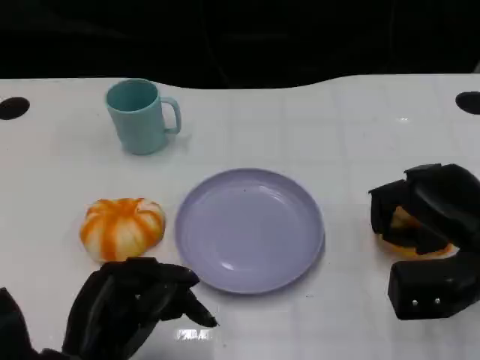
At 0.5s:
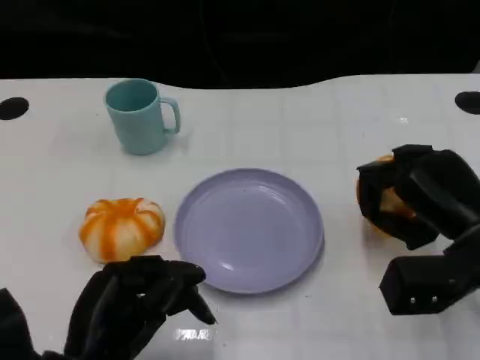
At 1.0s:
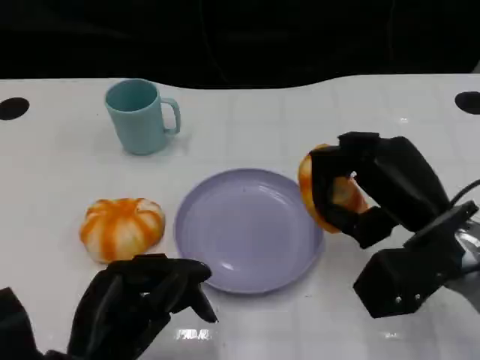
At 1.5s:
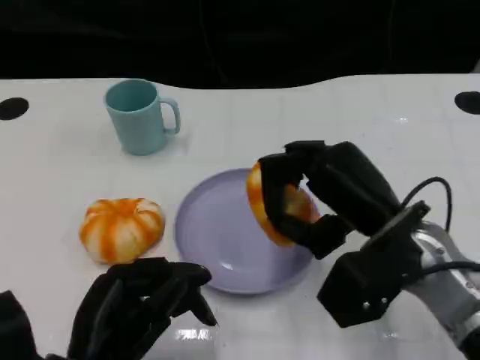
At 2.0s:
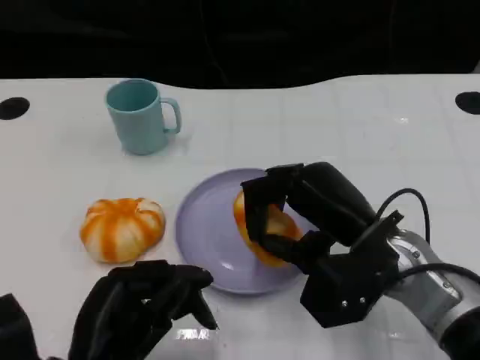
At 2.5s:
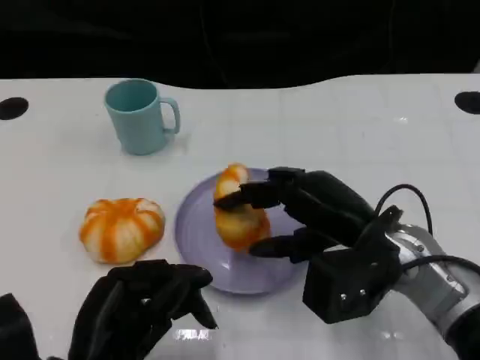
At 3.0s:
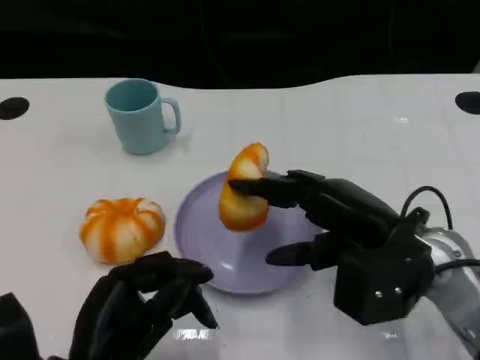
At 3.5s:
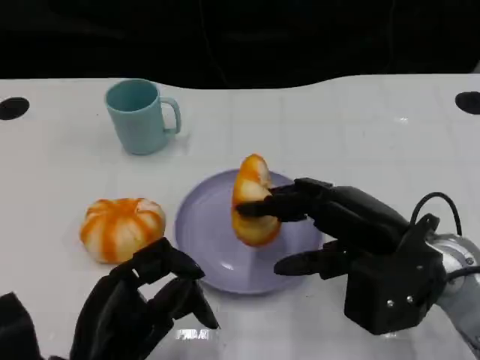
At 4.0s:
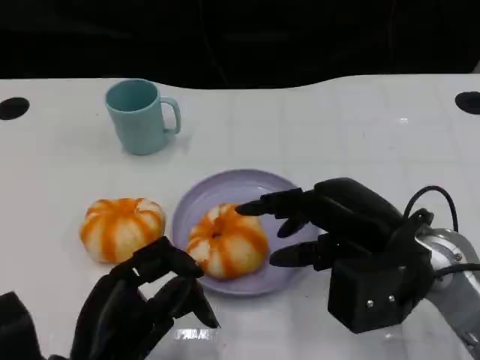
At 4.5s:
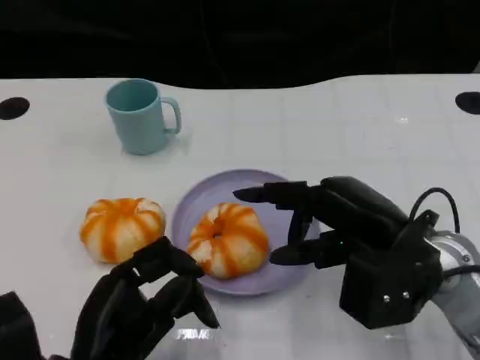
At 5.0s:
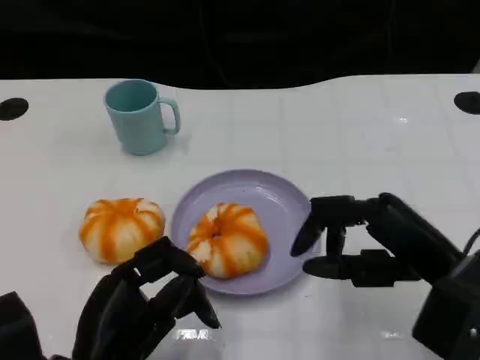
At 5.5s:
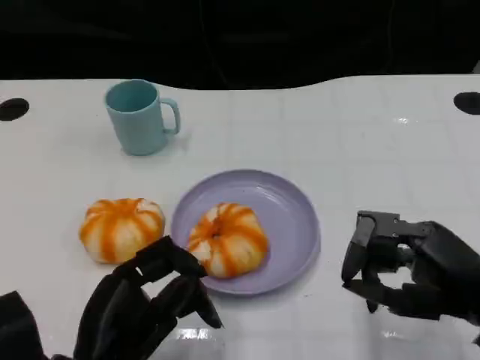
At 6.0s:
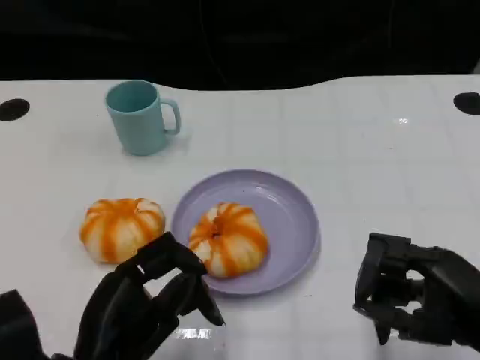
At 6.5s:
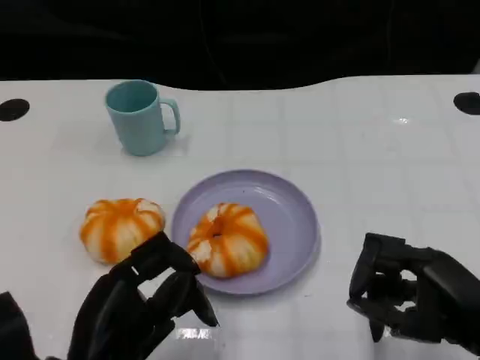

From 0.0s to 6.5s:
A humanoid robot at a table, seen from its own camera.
Task of the whole recording: Grasp the bread from the table and place it into the plate.
From 0.0s to 2.0s: The right hand moves to the left, about 10 cm.
From 2.0s to 4.5s: The hands make only small movements.
From 4.5s to 6.5s: The right hand goes about 10 cm backward and to the right.

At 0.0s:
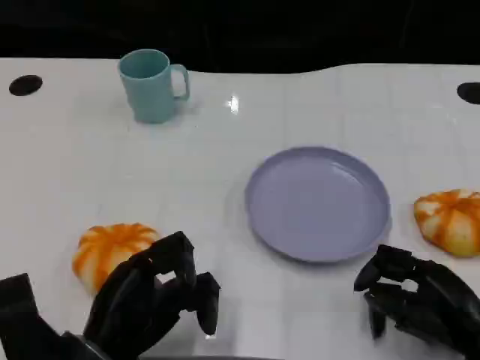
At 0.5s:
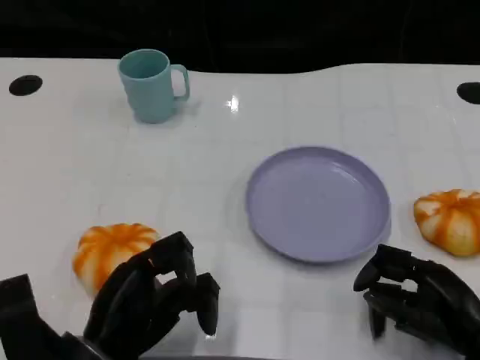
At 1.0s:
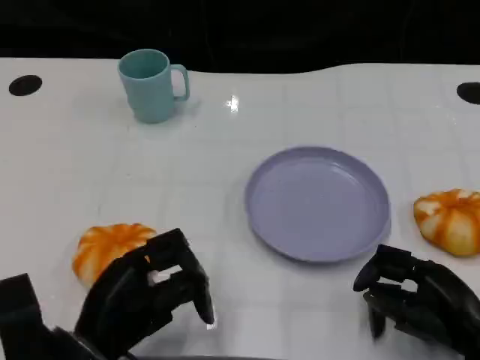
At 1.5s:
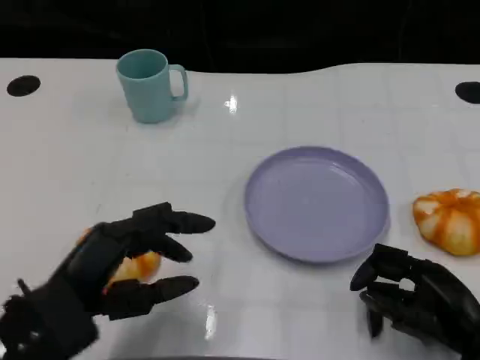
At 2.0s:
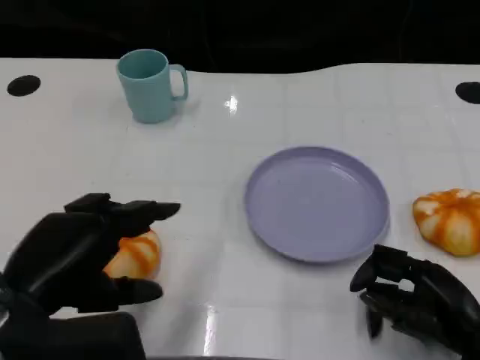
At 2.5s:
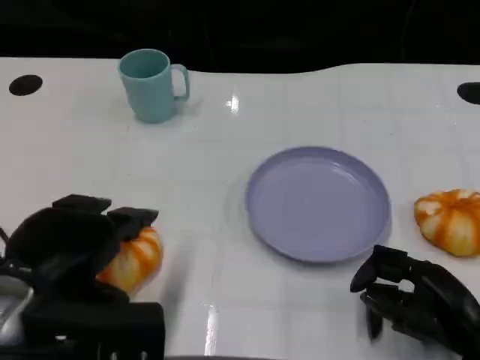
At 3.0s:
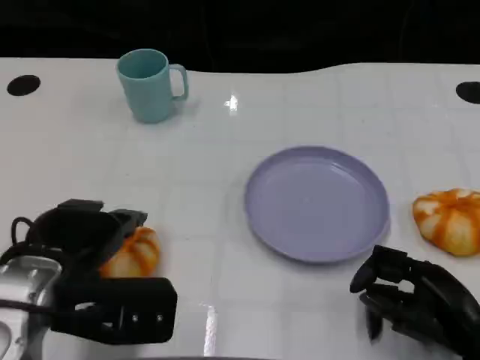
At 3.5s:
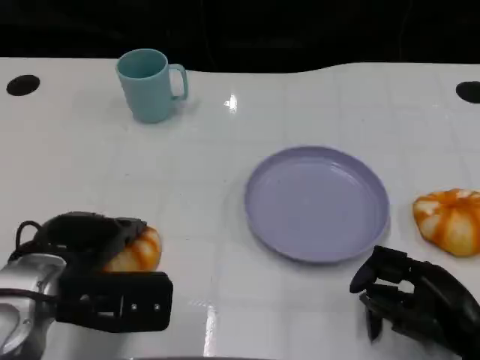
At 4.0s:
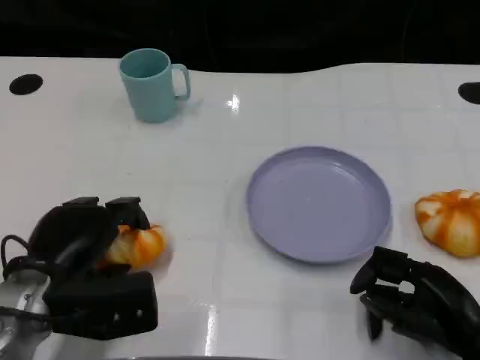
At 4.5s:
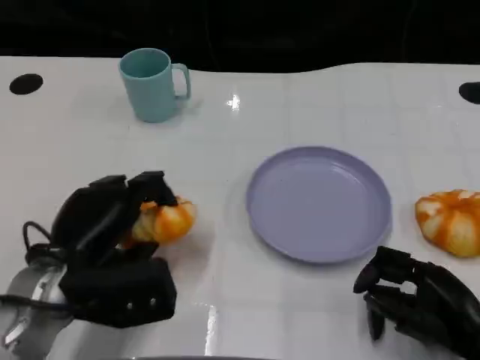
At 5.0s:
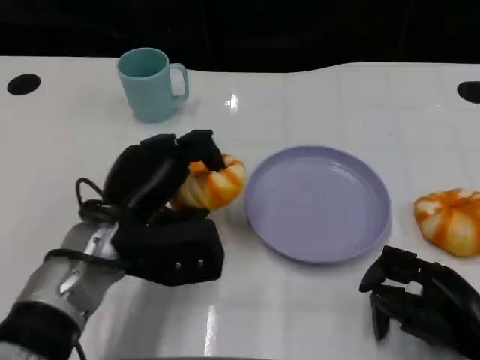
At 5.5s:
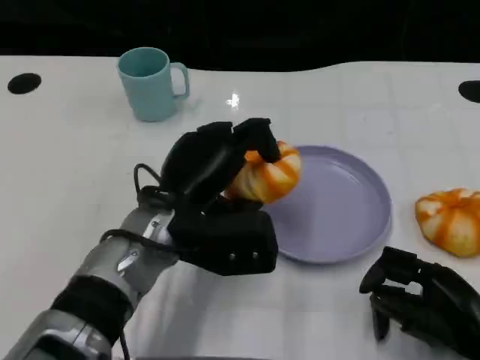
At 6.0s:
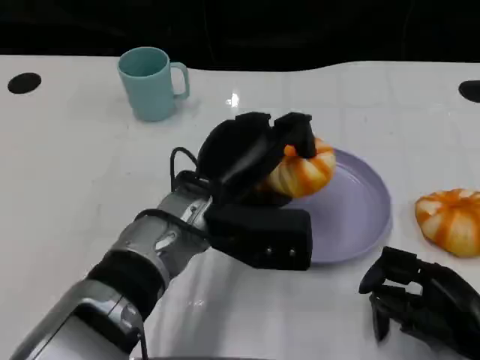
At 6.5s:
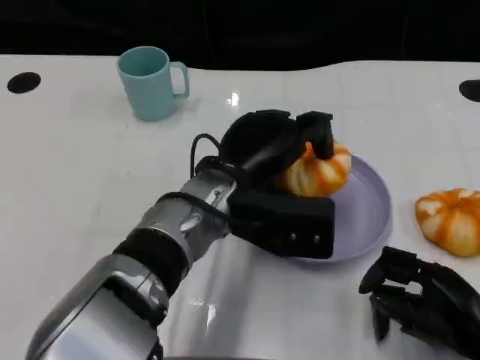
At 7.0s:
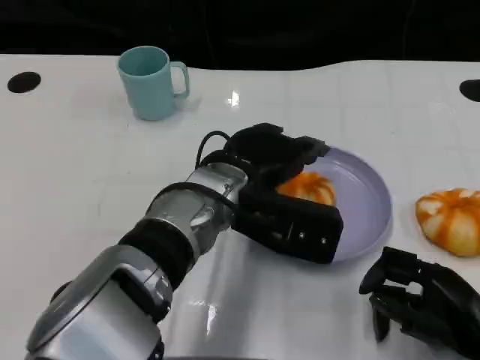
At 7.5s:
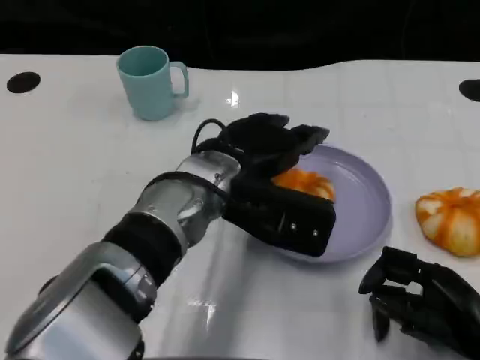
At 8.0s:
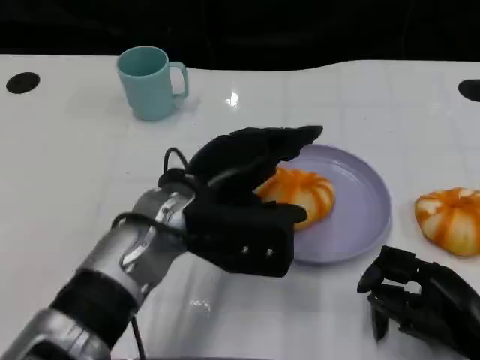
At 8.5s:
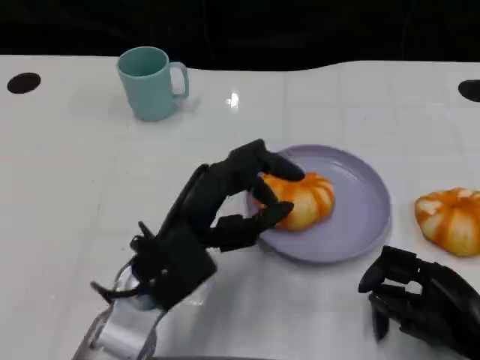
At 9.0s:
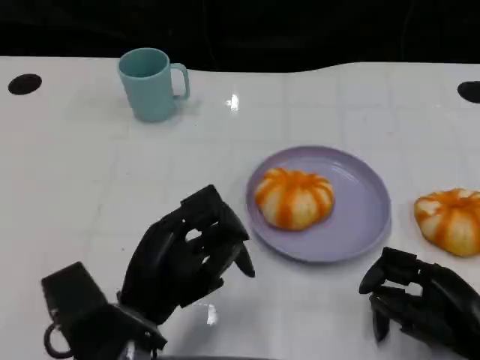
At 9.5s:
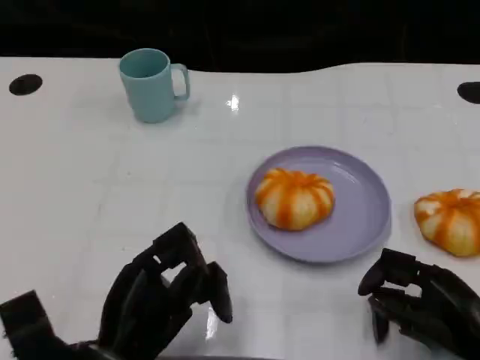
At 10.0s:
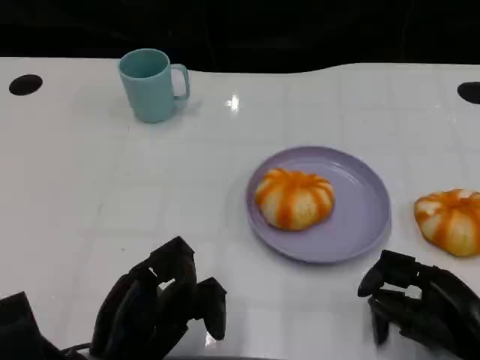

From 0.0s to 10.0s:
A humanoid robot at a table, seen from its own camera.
Task of the whole recording: Grasp the bread from the table and place it into the plate.
From 0.0s to 2.0s: The left hand heads upward, covering about 10 cm.
From 2.0s to 4.0s: The left hand goes approximately 10 cm downward and forward.
From 4.0s to 6.0s: The left hand goes approximately 15 cm to the right.
From 8.0s to 10.0s: The left hand travels backward, downward and to the left by roughly 15 cm.

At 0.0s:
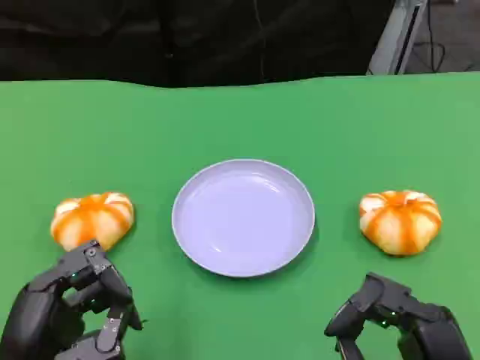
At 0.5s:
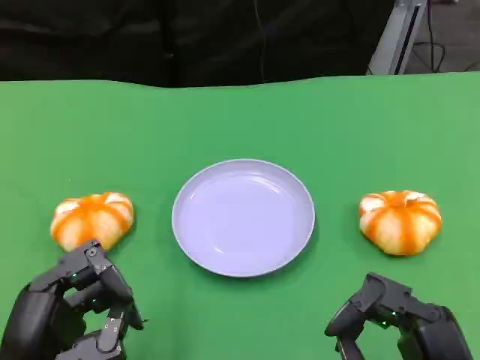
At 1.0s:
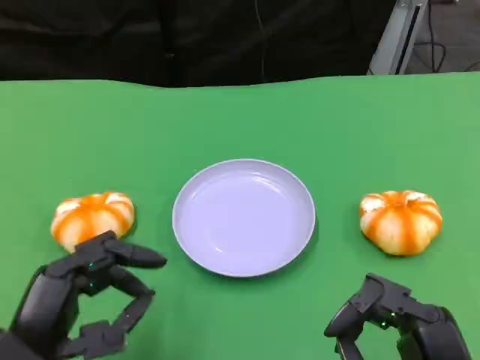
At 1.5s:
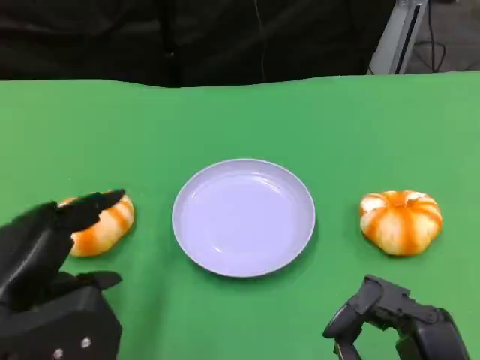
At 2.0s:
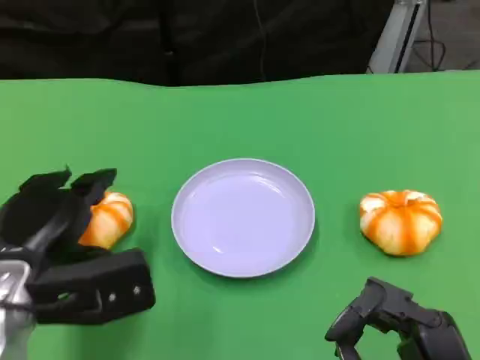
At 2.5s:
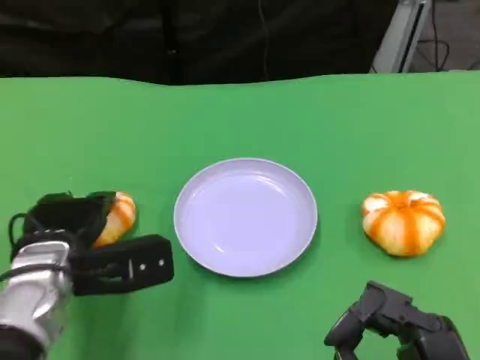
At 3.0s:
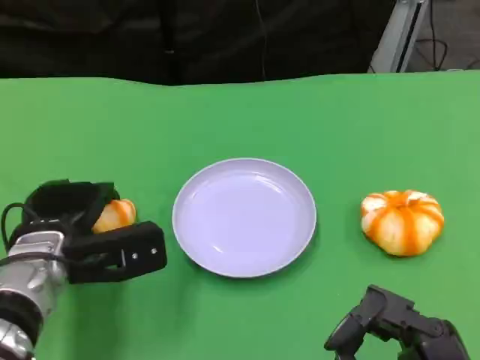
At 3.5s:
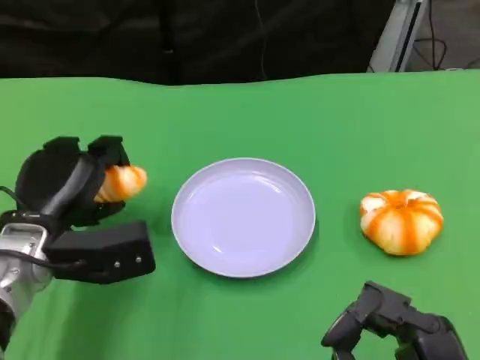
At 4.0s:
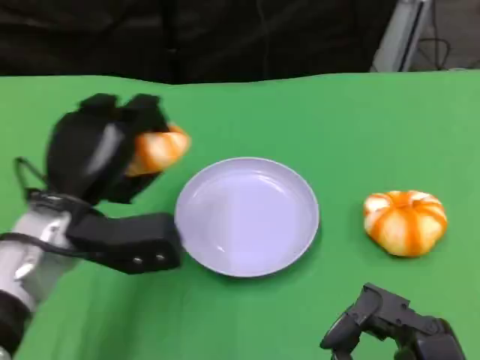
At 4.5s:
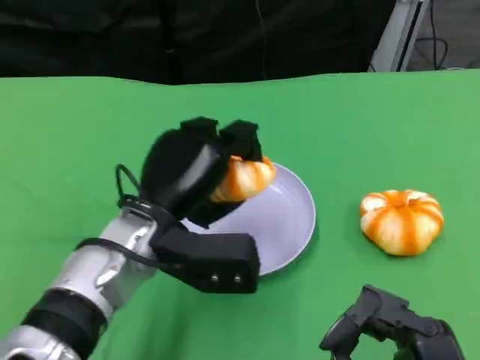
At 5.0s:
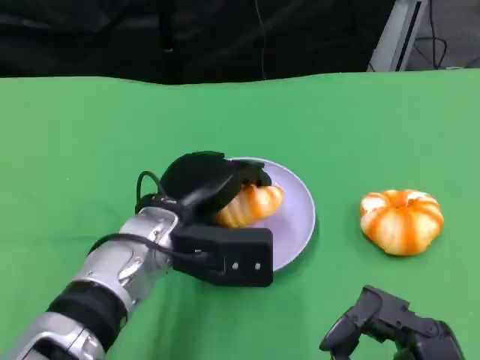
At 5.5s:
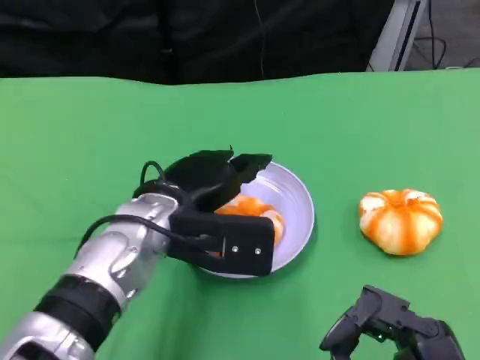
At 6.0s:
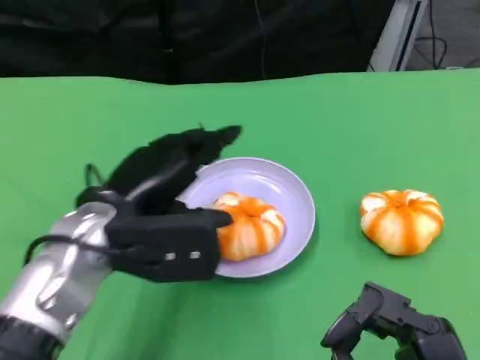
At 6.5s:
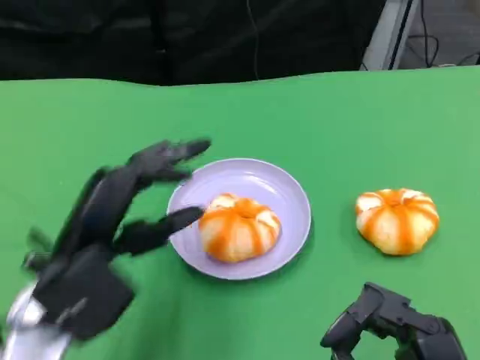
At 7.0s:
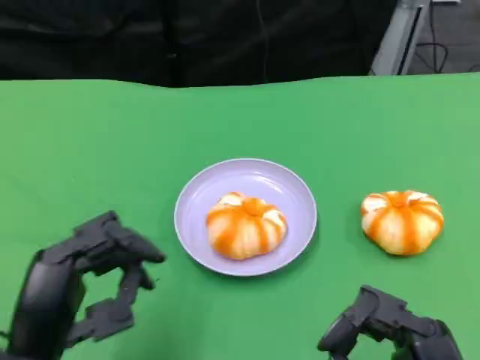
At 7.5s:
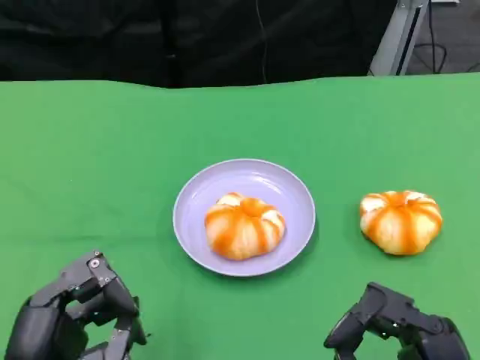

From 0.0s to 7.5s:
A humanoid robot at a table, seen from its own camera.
Task of the whole recording: Grasp the bread from the table and place it into the plate.
From 0.0s to 2.0s: The left hand moves forward, about 10 cm.
From 2.0s to 4.0s: The left hand shifts some 5 cm forward and to the right.
From 4.0s to 5.5s: The left hand heads to the right, covering about 5 cm.
From 5.5s to 7.5s: The left hand moves backward and to the left, some 20 cm.
